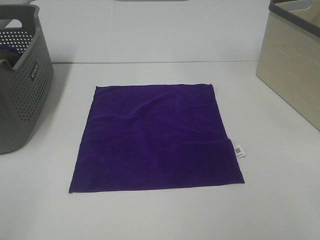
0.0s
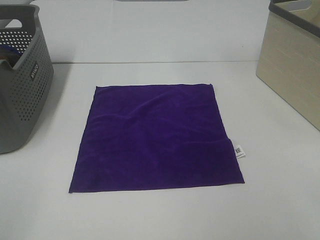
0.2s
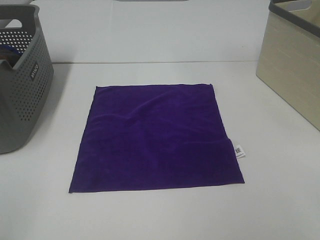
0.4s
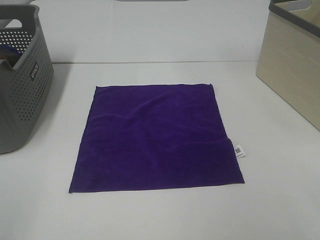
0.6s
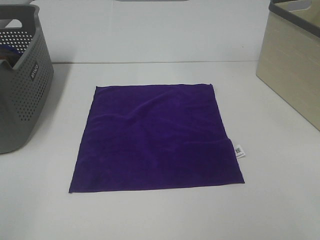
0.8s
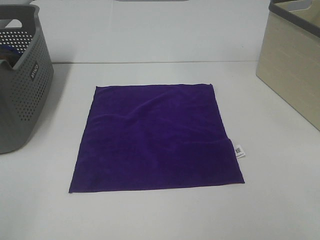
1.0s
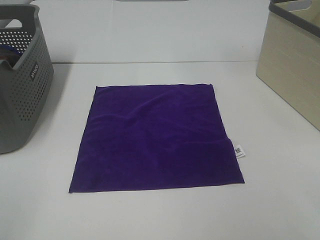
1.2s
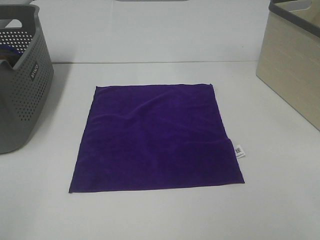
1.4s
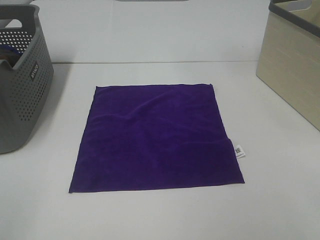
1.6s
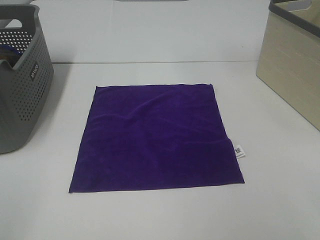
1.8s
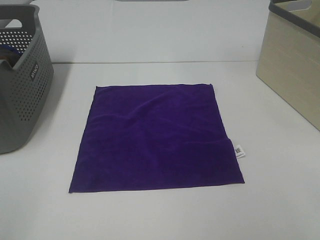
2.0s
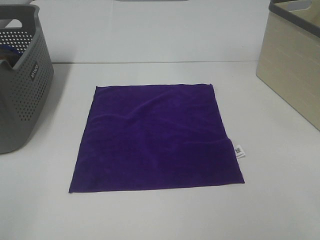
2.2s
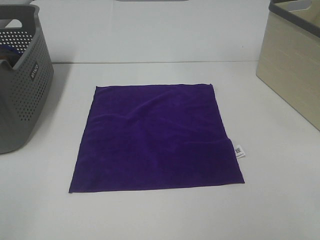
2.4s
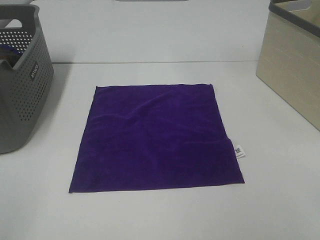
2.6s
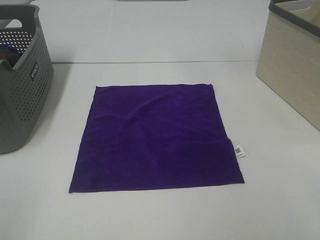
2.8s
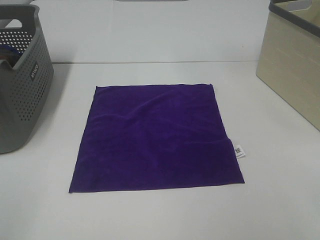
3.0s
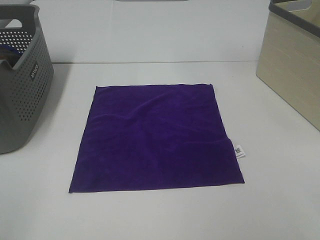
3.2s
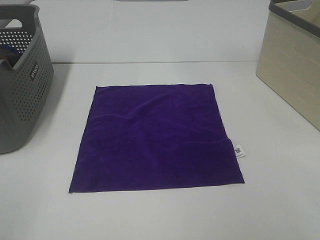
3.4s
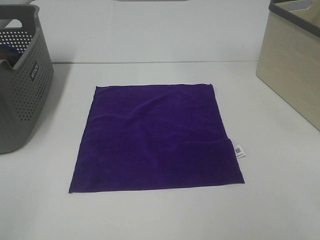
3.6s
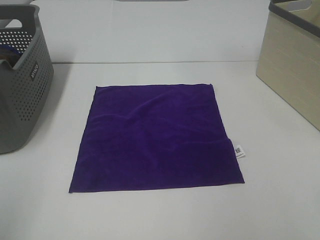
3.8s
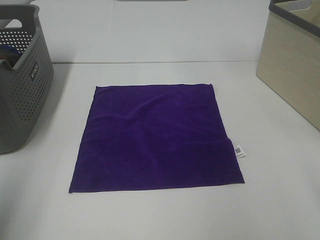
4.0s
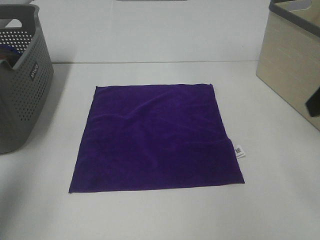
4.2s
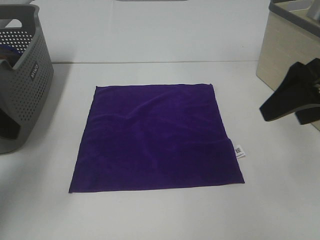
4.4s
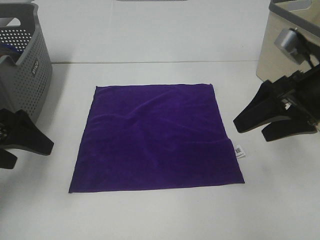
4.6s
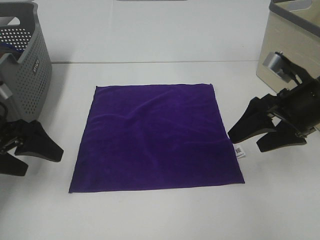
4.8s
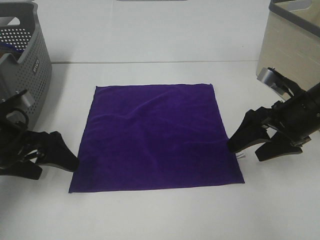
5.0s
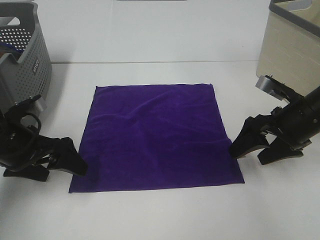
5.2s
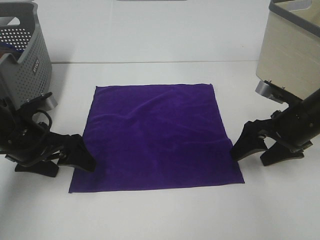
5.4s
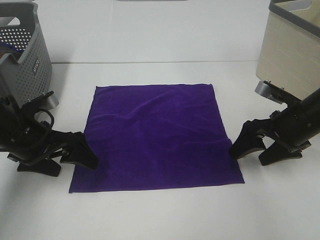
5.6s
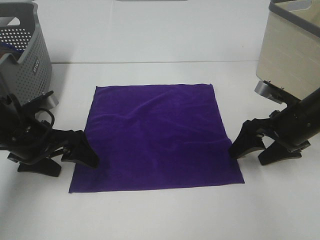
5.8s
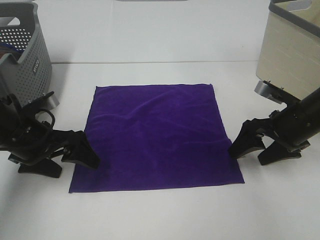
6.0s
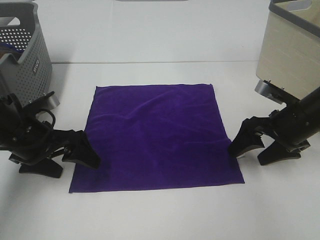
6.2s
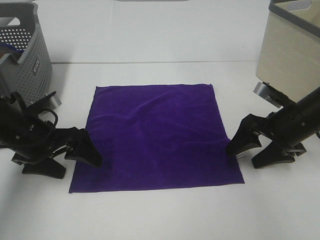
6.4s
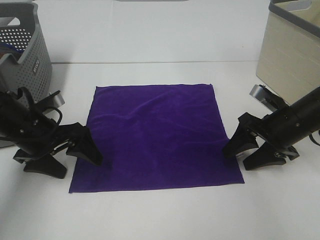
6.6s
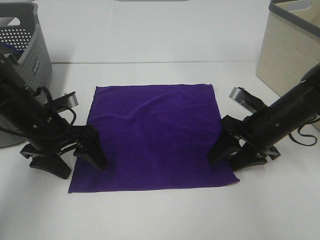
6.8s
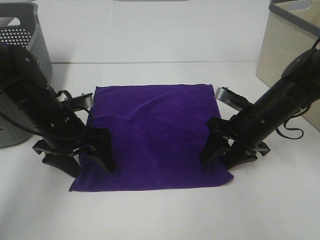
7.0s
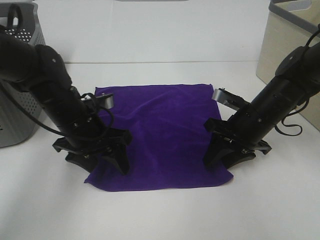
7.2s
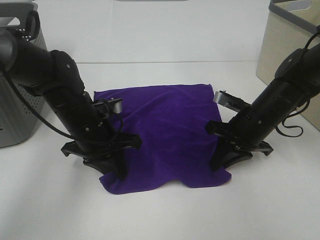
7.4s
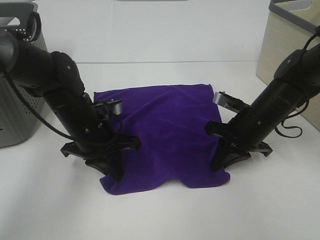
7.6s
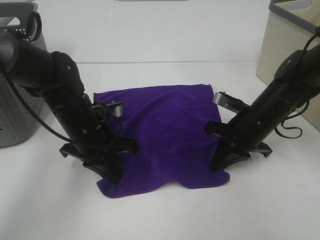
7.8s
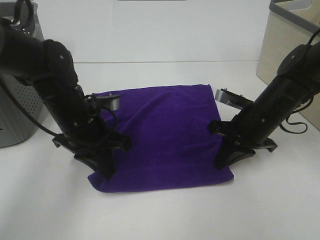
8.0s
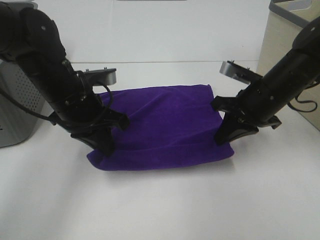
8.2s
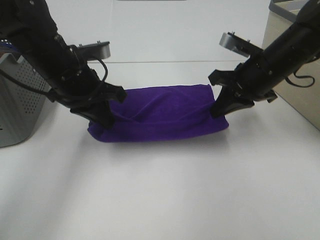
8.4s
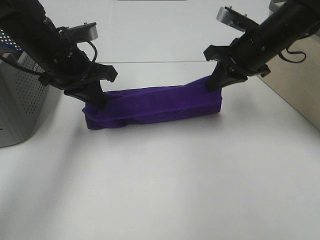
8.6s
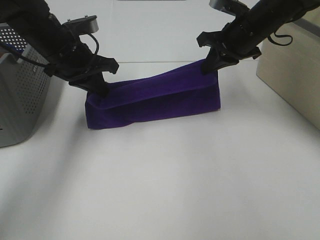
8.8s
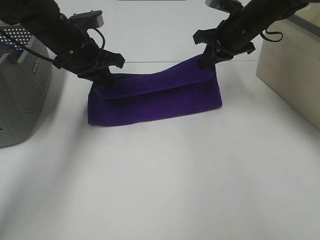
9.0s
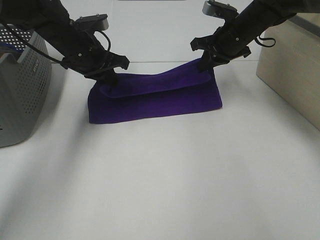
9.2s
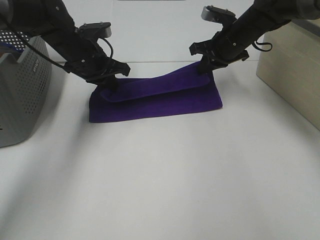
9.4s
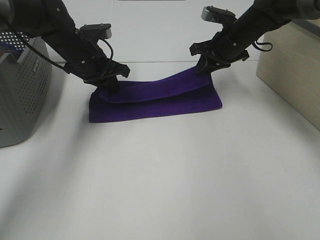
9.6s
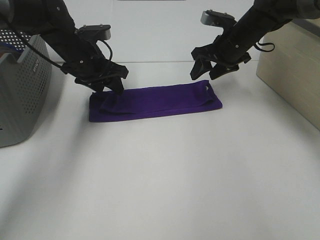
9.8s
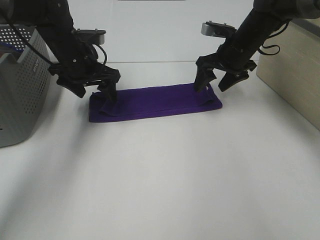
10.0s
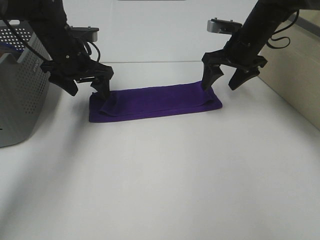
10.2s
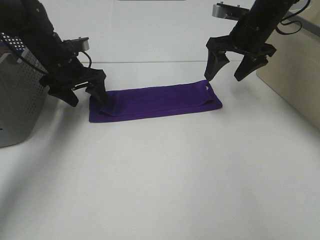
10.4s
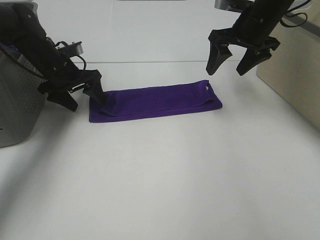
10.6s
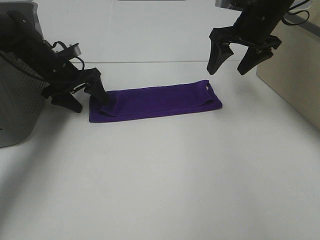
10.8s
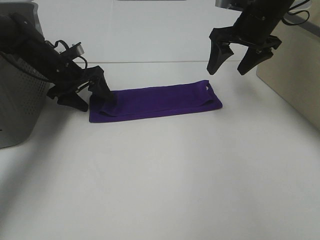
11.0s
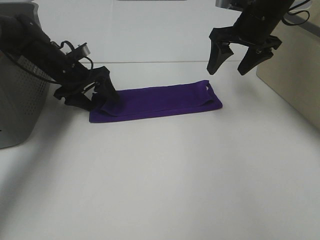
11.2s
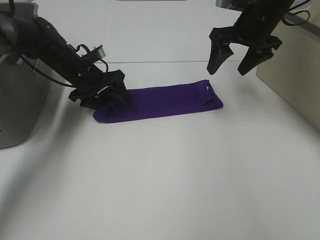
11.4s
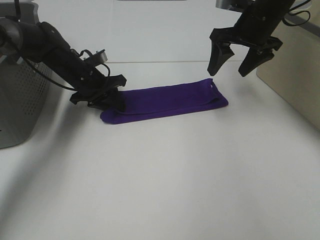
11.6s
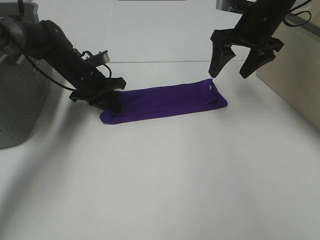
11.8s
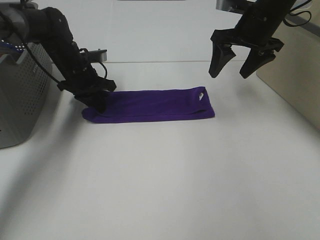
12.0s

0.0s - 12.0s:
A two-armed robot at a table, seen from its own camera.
Task of the whole recording: Fold towels.
Step, 0.0s - 7.8s: Left hand: grab the bottom left corner of purple towel.
Step, 0.0s - 7.8s: Right hand: grab the bottom right corner of purple towel.
Step, 8.0s - 9.6s: Left hand: fold the purple towel up.
Step, 8.0s - 9.6s: Right hand: fold the purple towel up.
0.0s - 3.0s: Both grippers stay put.
3.0s - 4.4s: Both grippers move forward, about 25 cm.
4.4s - 6.0s: The left gripper moves downward, to the right and forward, some 15 cm, while the right gripper heads downward, covering about 15 cm.
6.0s - 7.6s: The right gripper shifts roughly 5 cm to the left, and closes. Meanwhile the left gripper goes about 10 cm to the right, and closes its fingers.
7.6s - 9.0s: Both grippers travel together forward and upward, some 15 cm.
9.0s - 10.4s: The right gripper opens up; the left gripper goes about 5 cm downward, and opens.
10.4s - 12.0s: The left gripper closes.

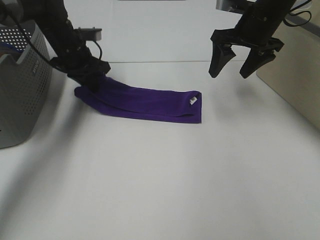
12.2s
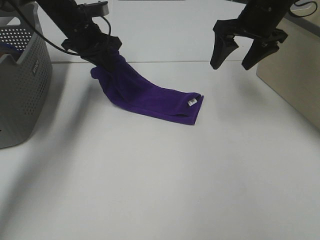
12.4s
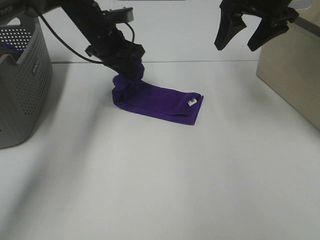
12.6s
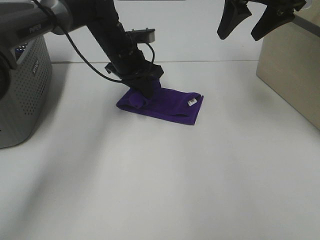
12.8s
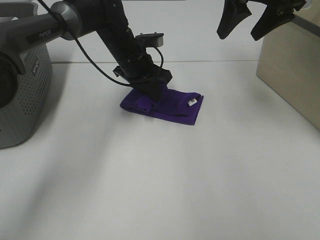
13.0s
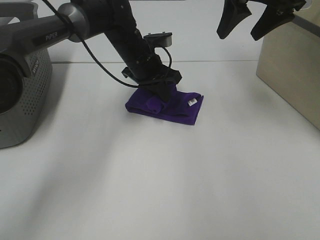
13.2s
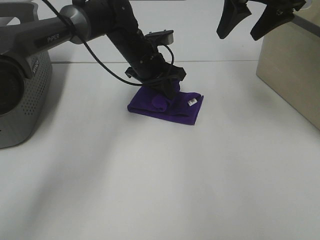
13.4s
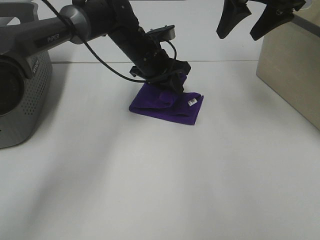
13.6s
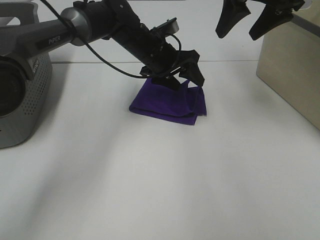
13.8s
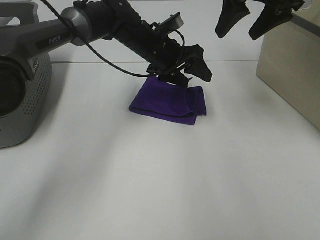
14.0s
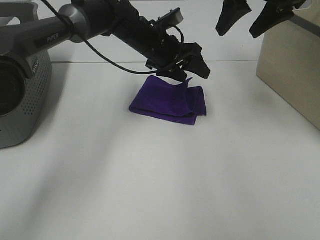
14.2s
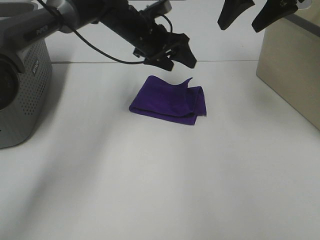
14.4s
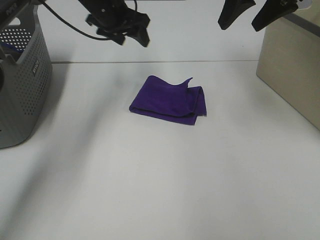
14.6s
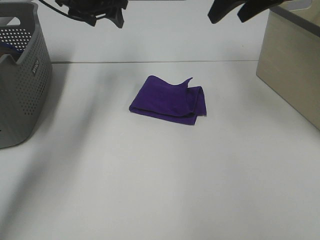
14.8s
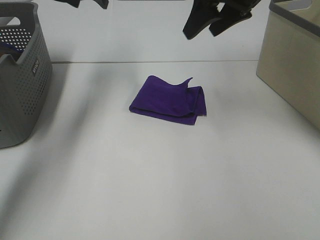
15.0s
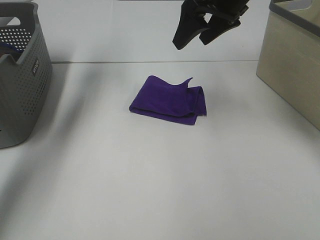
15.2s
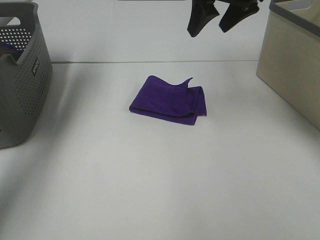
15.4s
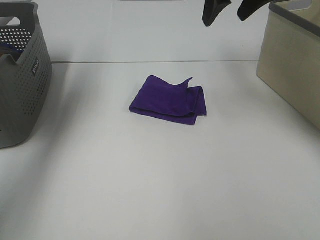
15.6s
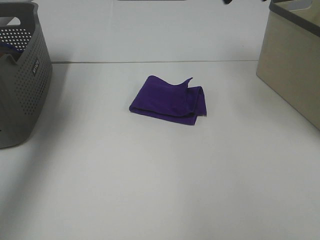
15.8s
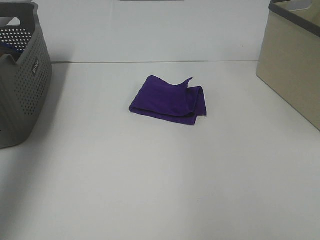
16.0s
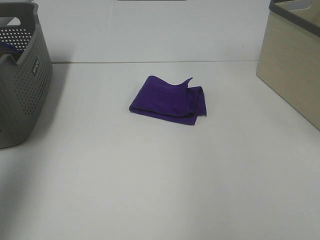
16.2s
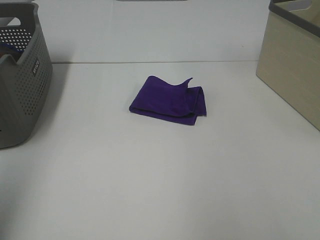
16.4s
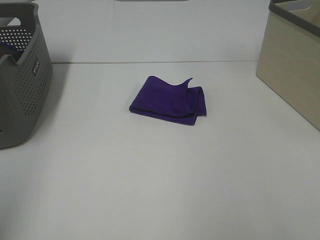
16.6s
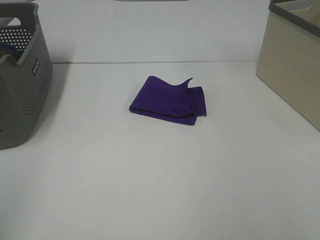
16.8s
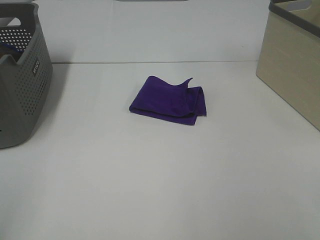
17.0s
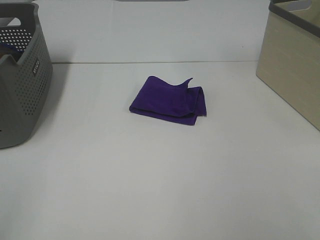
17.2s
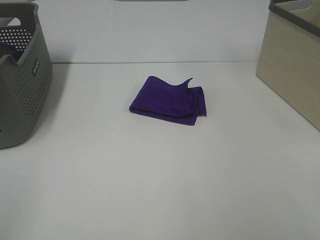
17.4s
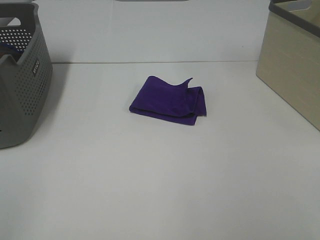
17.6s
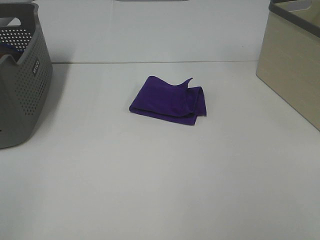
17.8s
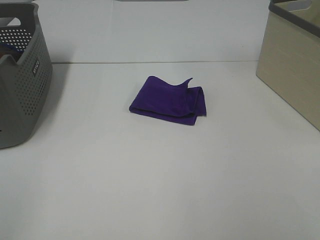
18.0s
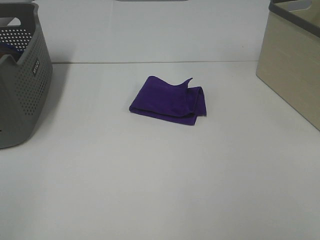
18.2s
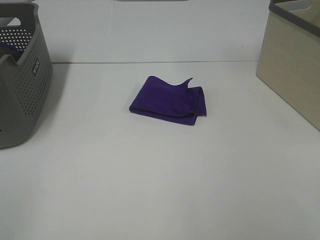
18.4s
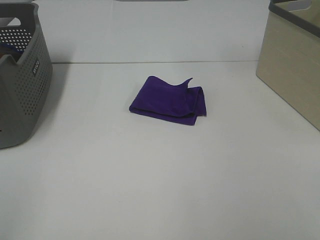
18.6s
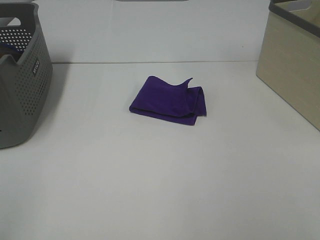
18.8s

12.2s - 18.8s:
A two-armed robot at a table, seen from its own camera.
Task of the whole recording: Fold towels.
12.2s - 13.8s: The right gripper moves upward, some 10 cm. The left gripper is displaced to the right by roughly 15 cm, and opens.
13.8s - 15.4s: The left gripper is displaced to the left and upward by approximately 35 cm; the right gripper heads to the left, covering about 5 cm.
15.4s - 17.2s: Both grippers move backward, roughly 40 cm.
